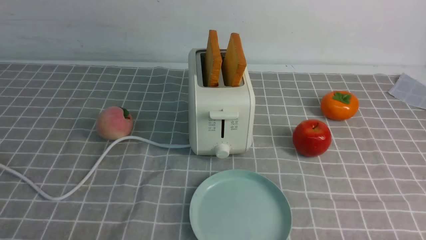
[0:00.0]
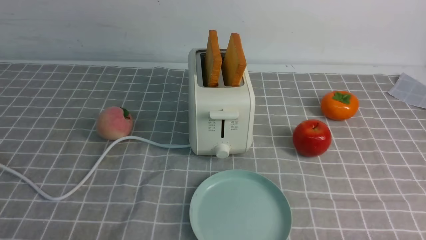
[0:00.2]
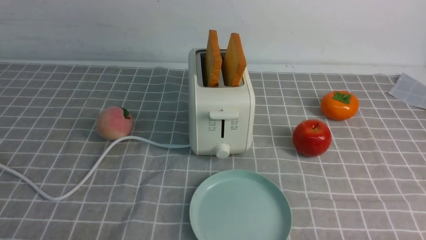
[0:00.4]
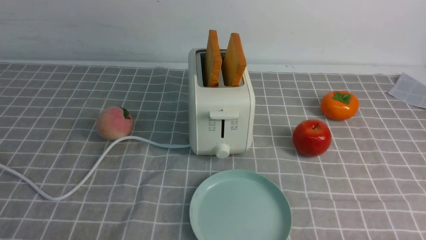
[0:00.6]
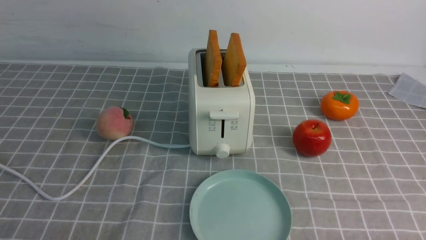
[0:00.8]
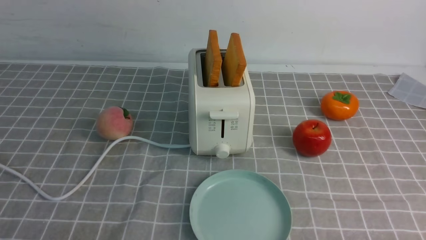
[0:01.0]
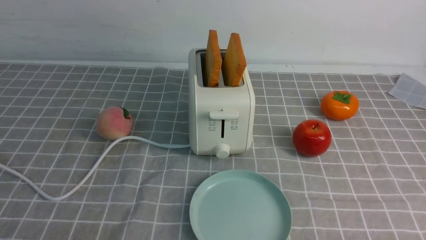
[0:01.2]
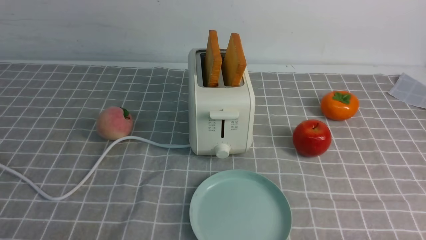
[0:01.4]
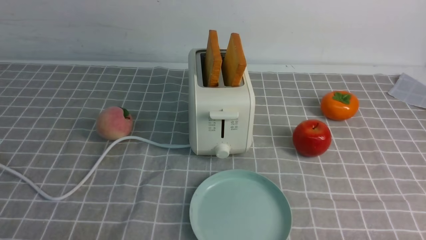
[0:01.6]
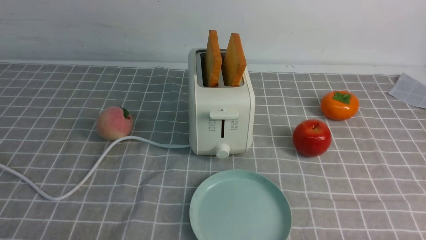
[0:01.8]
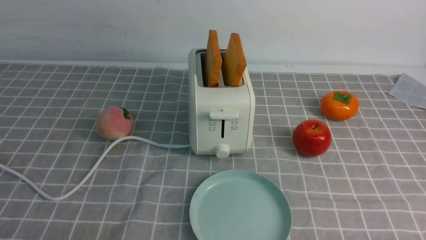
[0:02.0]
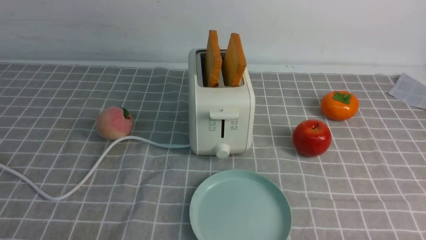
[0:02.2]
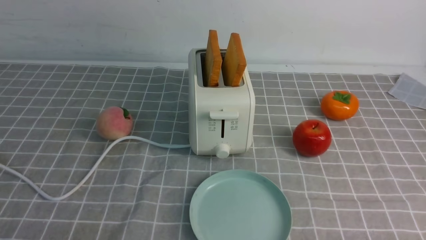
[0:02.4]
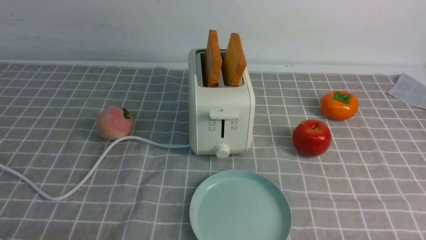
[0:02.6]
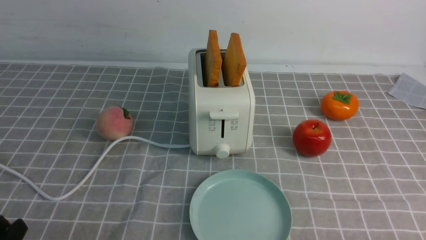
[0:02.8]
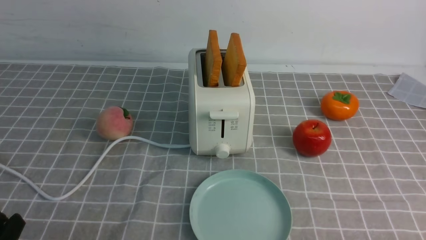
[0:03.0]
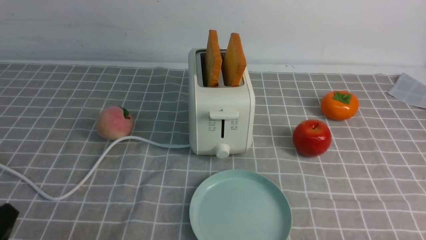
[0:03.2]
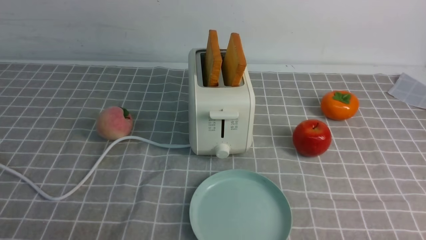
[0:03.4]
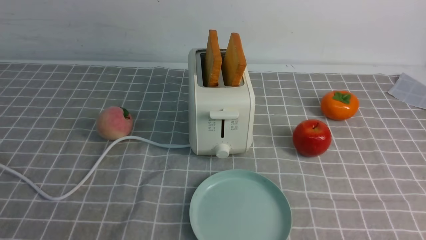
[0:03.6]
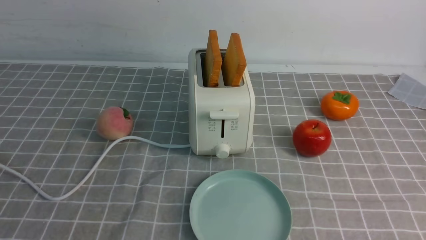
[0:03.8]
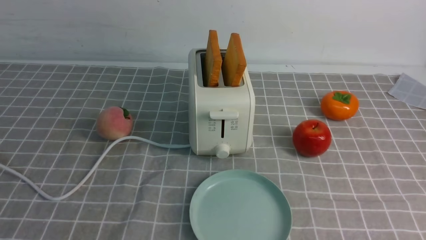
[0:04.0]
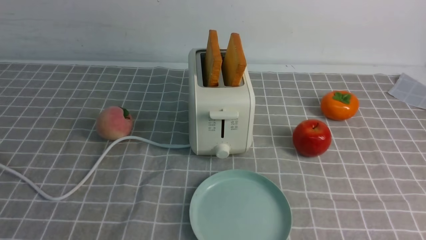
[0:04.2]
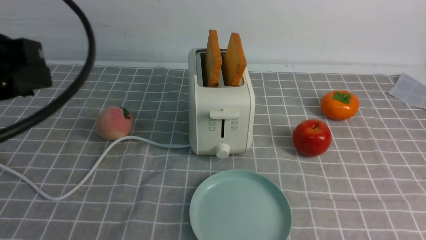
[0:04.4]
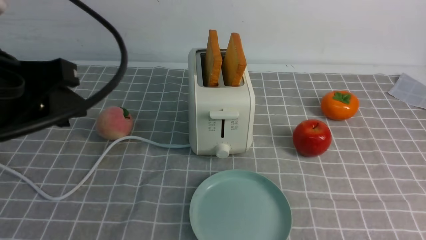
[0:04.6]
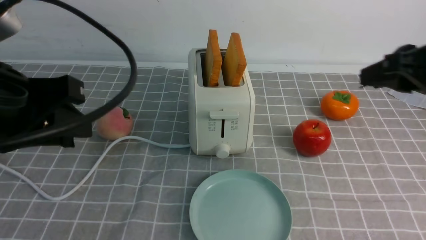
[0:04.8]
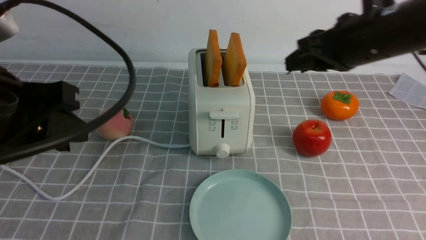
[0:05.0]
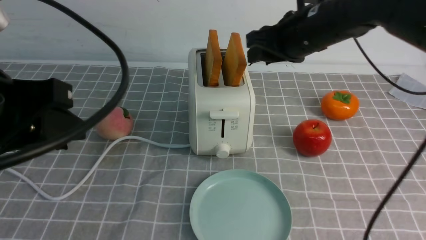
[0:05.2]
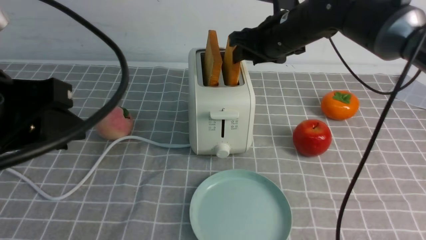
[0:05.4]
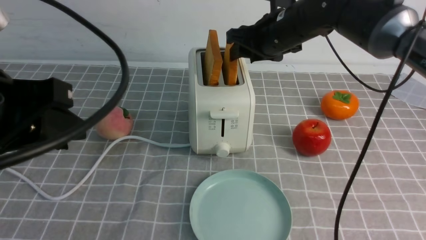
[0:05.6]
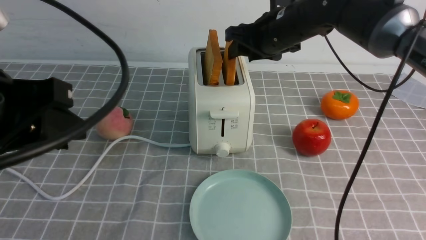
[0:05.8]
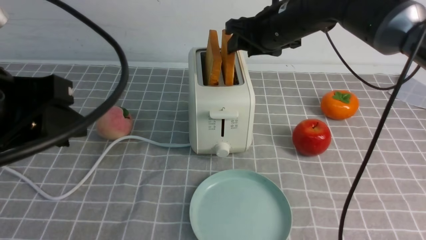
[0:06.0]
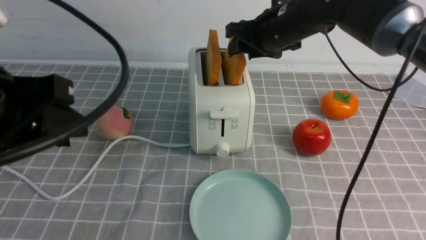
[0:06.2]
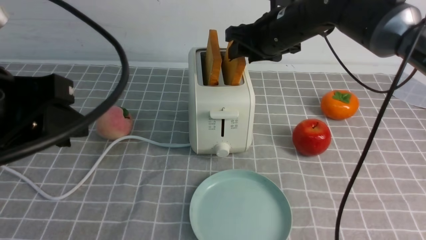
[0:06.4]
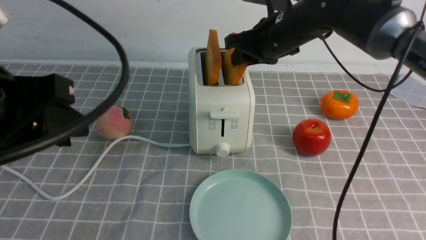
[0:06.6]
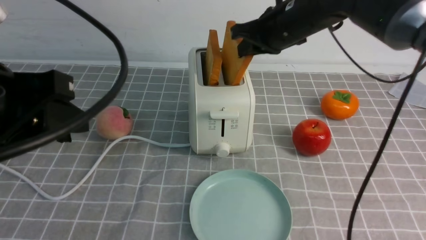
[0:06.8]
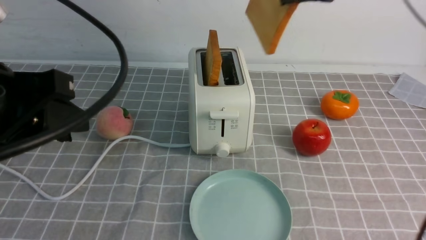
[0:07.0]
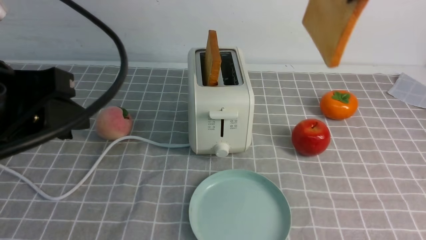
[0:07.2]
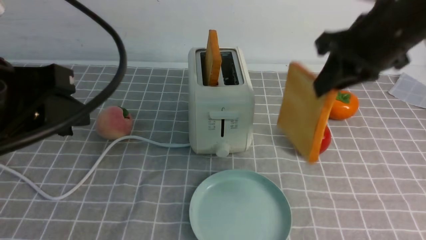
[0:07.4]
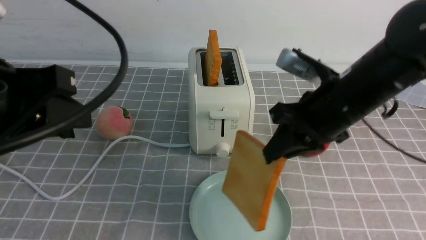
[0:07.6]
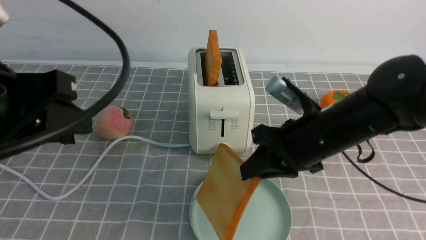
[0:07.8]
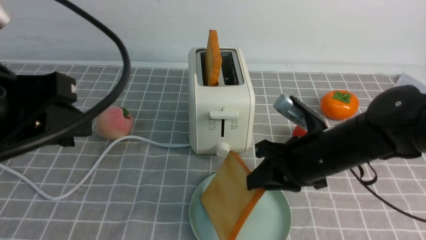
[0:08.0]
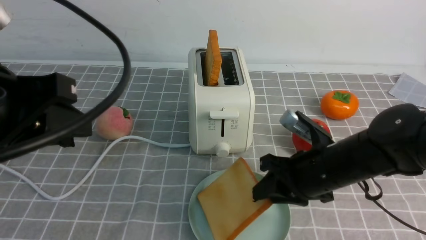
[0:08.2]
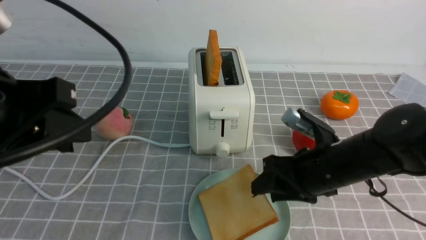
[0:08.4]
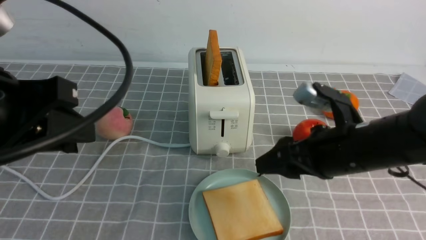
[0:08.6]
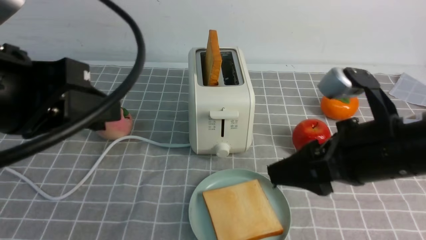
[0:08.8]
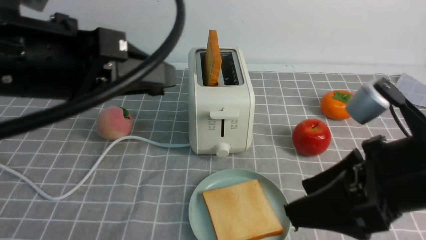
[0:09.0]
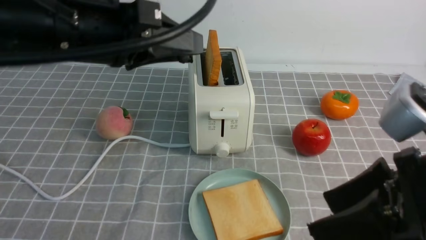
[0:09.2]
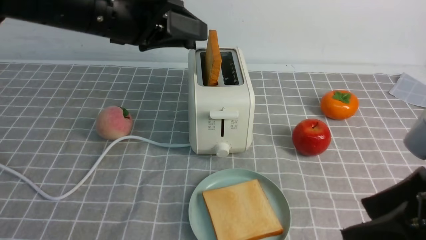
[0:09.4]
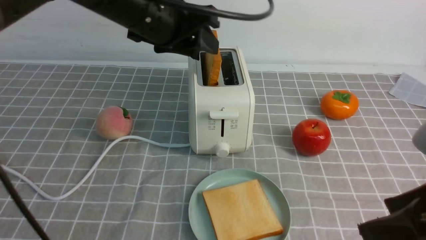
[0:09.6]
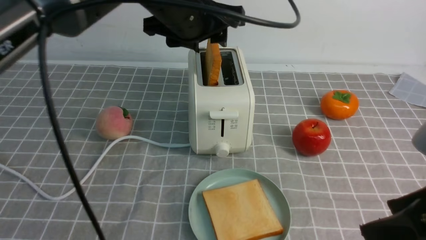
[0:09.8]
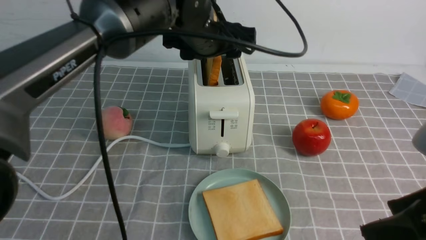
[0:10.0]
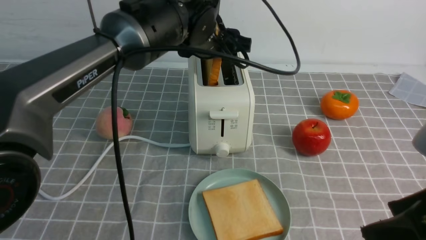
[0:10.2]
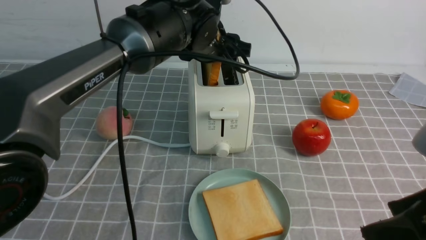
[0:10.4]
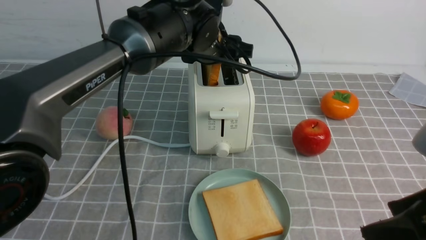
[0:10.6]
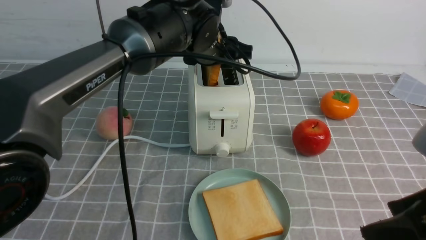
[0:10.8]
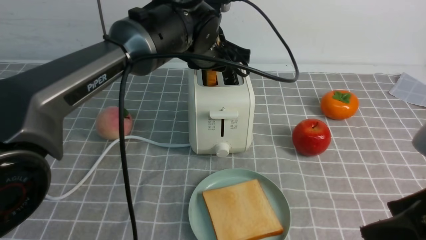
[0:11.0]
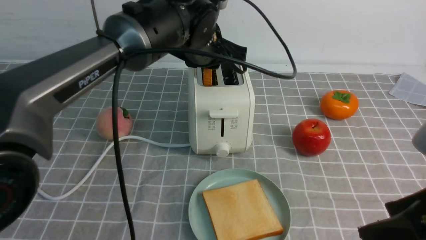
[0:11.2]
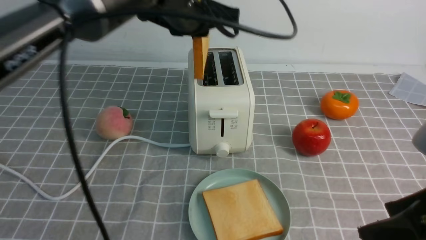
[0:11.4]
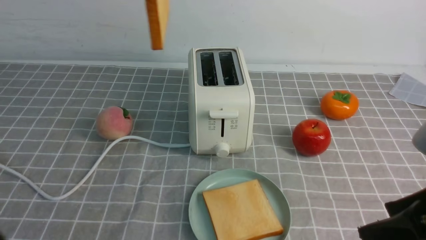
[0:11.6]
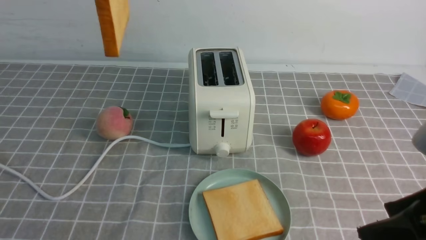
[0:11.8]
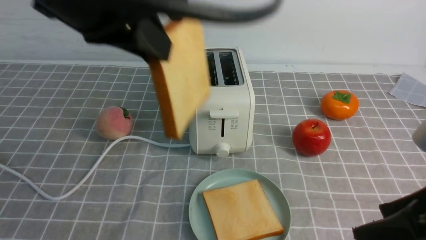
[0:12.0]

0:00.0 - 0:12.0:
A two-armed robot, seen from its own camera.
Task of the whole recording: take toasted bread from bread machine on grey coffee table place on plate.
Step, 0:00.0 - 0:06.8: use the right arm to take out a slice of bread.
Step, 0:07.0 - 0:08.6: use the right arm to put a slice of bread into the plate.
Step, 0:08.8 - 0:11.2: use the left arm to take out a slice of bread.
0:00.0 - 0:01.6: Both grippers stay put.
0:03.0 - 0:04.4: The left gripper is displaced upward and forward by approximately 25 cm.
0:04.4 - 0:06.0: The right gripper moves forward and to the left, roughly 35 cm.
0:06.0 - 0:07.6: The right gripper moves backward, roughly 15 cm, and closes.
0:07.6 - 0:09.0: The left gripper ends up roughly 5 cm from where it was, while the right gripper moves backward, roughly 15 cm, and opens up.
0:09.0 - 0:10.4: The right gripper ends up approximately 5 cm from where it was. Meanwhile the left gripper heads forward and to the right, covering some 25 cm, and opens up.
0:10.4 - 0:12.0: The left gripper travels backward, upward and to the left by about 25 cm, and closes up.

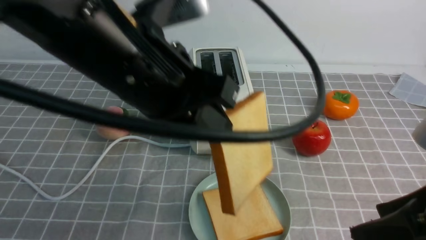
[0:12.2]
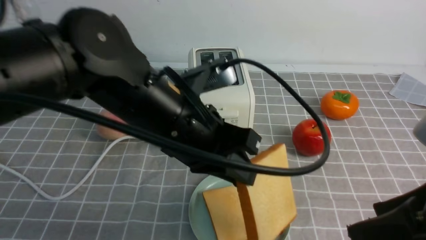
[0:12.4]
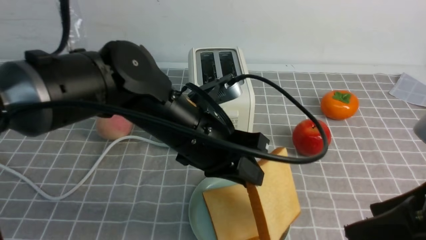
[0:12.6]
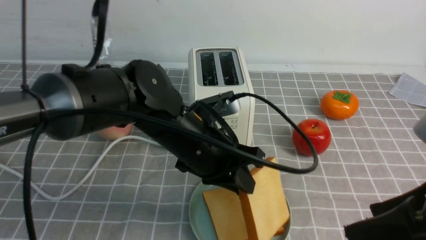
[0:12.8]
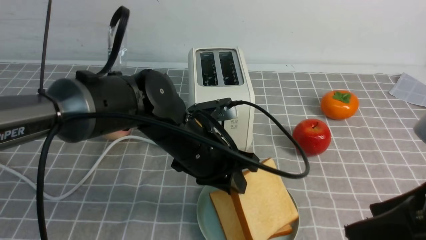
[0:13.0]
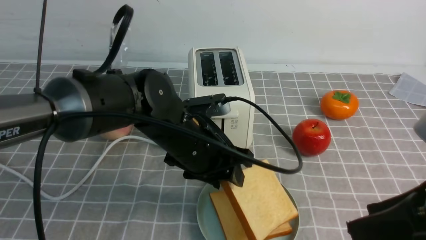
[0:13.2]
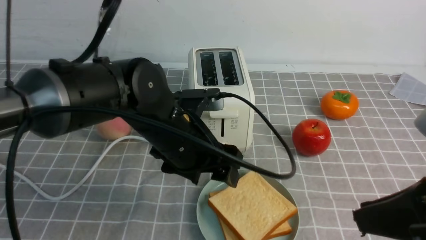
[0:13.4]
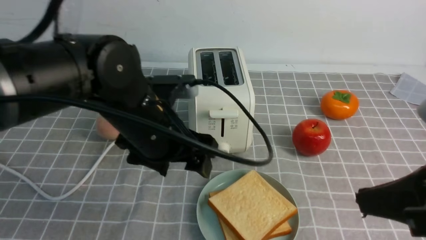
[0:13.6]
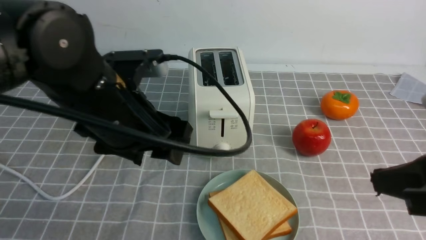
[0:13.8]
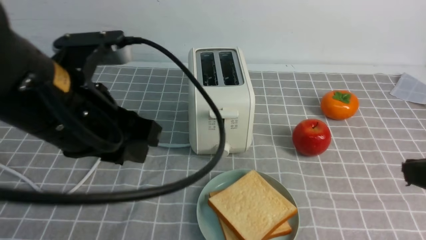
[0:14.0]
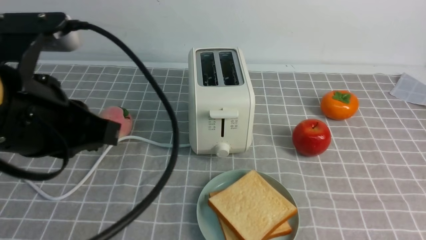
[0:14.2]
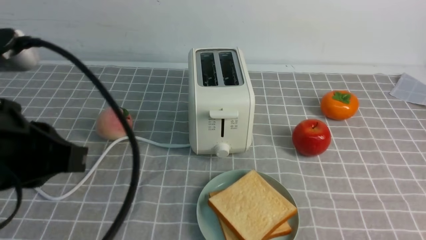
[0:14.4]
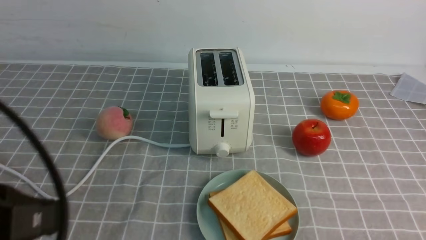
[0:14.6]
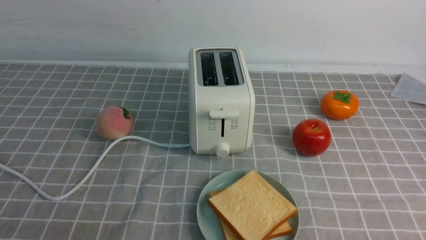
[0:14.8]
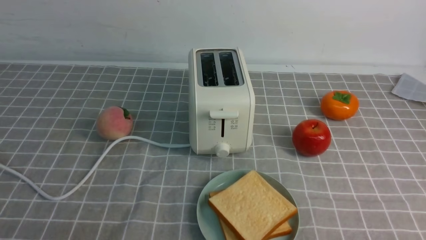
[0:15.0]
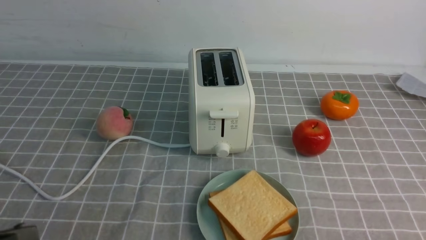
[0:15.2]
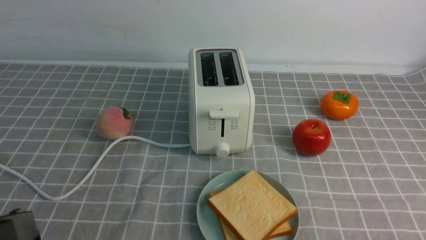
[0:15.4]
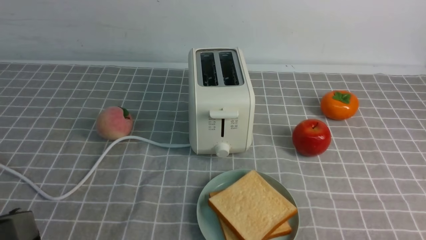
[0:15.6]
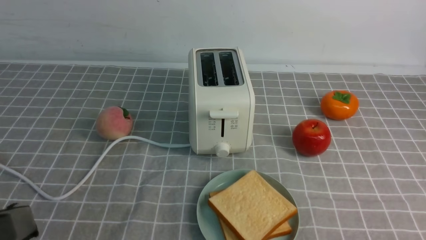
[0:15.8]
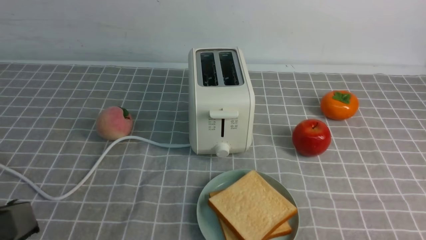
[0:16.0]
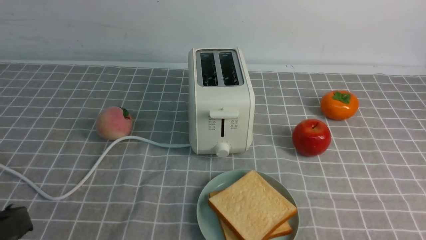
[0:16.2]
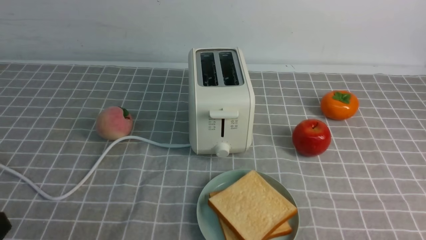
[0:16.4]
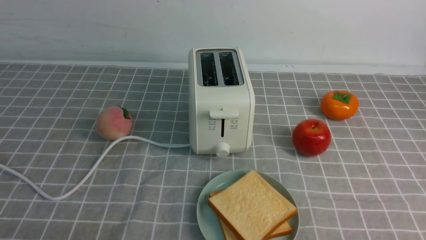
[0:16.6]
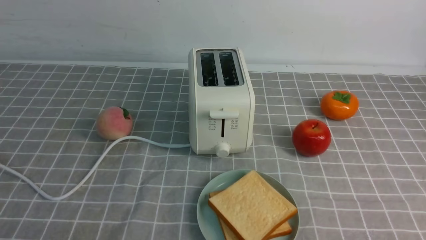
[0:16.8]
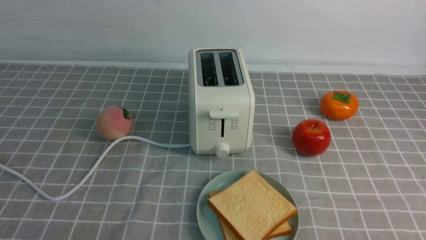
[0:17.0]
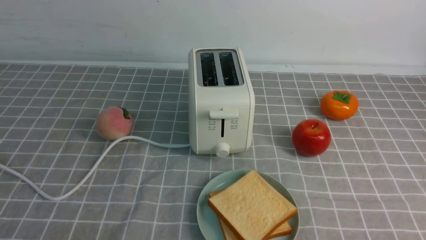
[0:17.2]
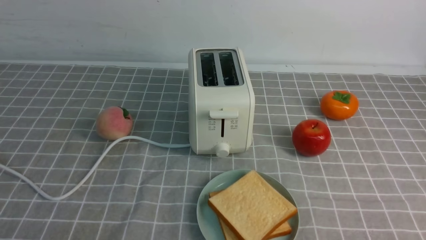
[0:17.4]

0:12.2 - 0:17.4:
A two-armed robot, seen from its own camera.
Task of the whole recording: take toasted bread from bread machine on grey coffee table place on plate.
Step, 0:12.2 - 0:13.4: use the left arm to put a slice of bread into the empty plate.
0:12.2 - 0:14.0: The right gripper closes up; the left gripper is displaced to the left by about 5 cm, travels downward and back again, approximately 15 cm each way, and opens, then closes again.
0:14.0 - 0:15.6: The right gripper moves downward, backward and to the right, approximately 15 cm. Meanwhile the left gripper travels backward and to the left by approximately 20 cm, and closes.
0:15.6 - 0:17.4: The left gripper heads downward, covering approximately 20 cm.
